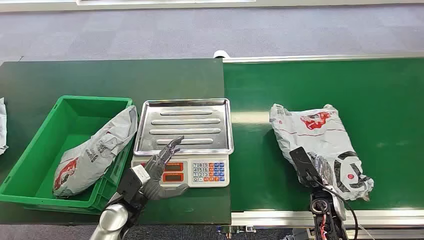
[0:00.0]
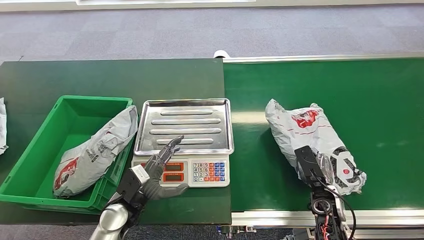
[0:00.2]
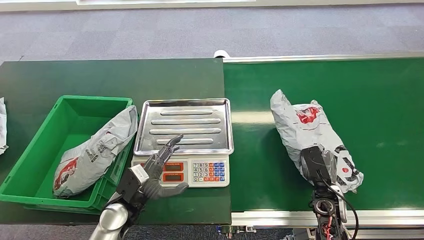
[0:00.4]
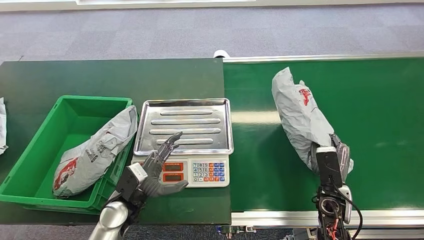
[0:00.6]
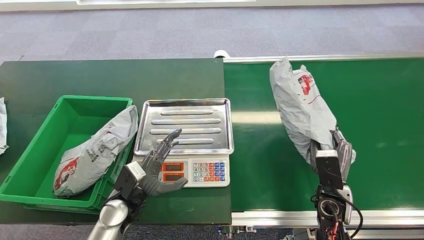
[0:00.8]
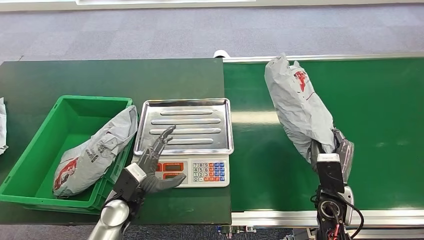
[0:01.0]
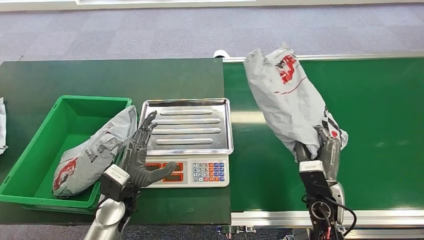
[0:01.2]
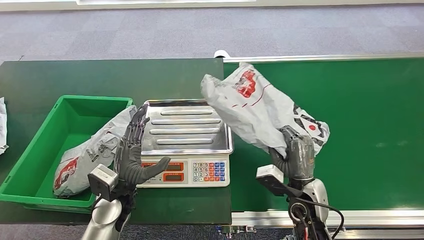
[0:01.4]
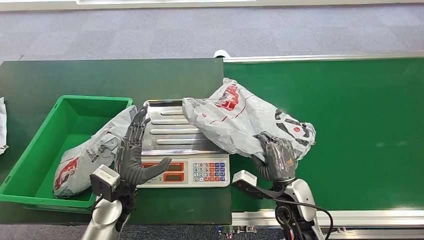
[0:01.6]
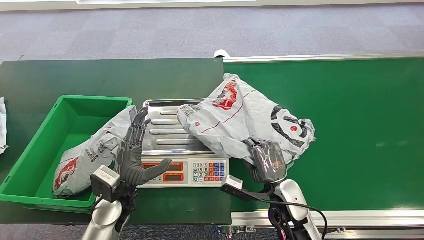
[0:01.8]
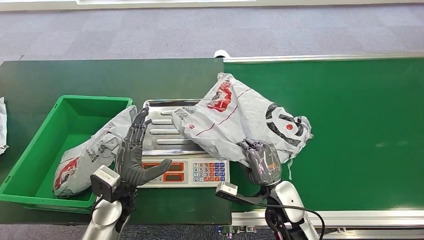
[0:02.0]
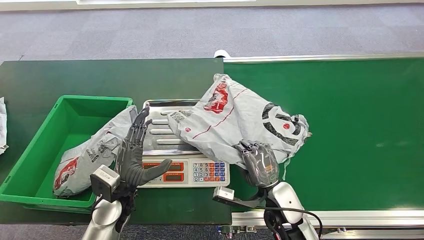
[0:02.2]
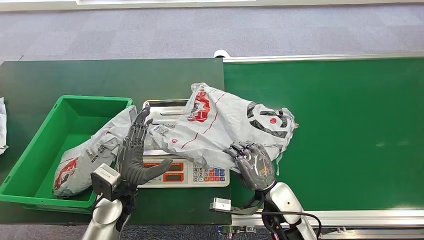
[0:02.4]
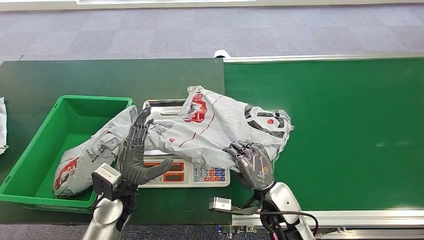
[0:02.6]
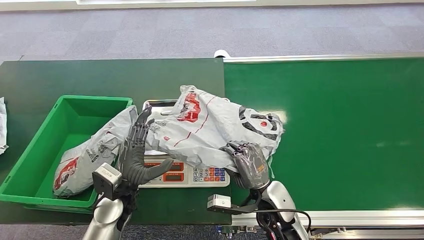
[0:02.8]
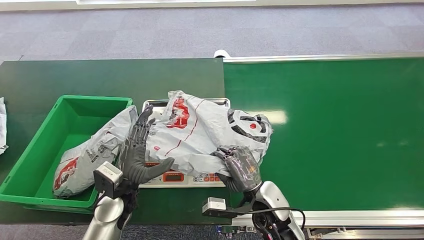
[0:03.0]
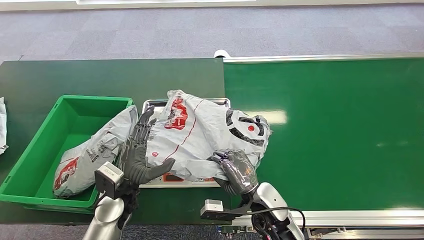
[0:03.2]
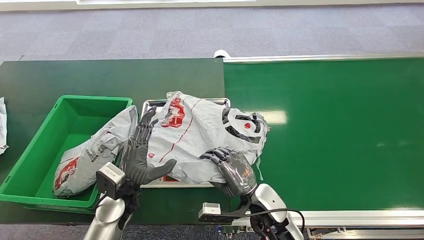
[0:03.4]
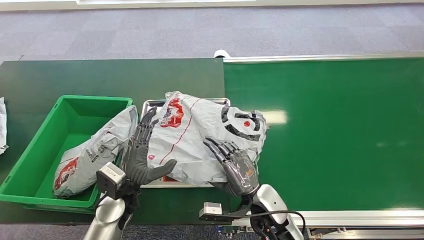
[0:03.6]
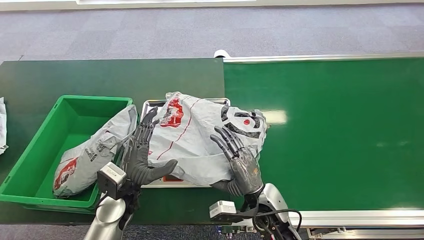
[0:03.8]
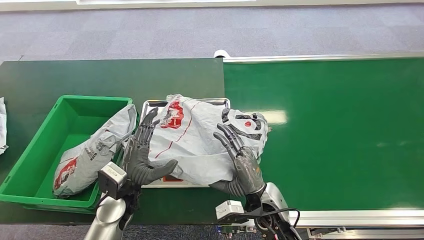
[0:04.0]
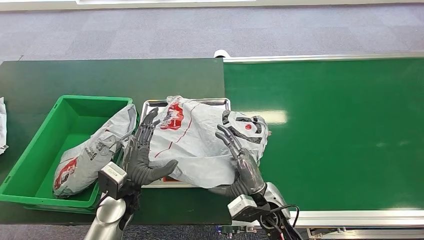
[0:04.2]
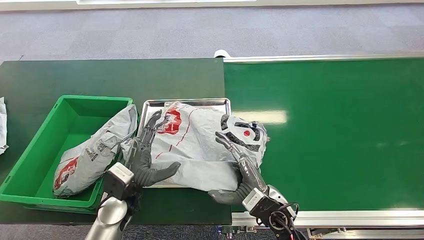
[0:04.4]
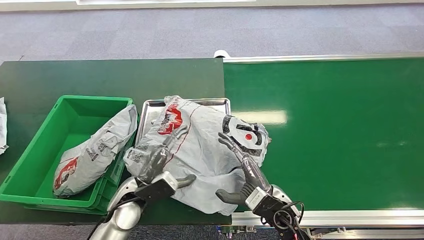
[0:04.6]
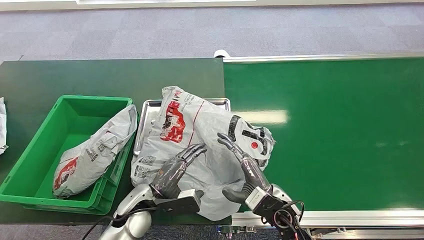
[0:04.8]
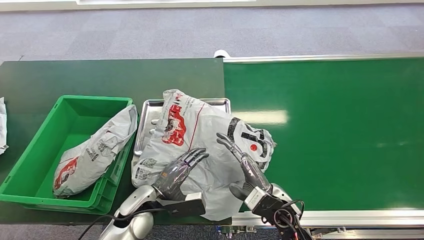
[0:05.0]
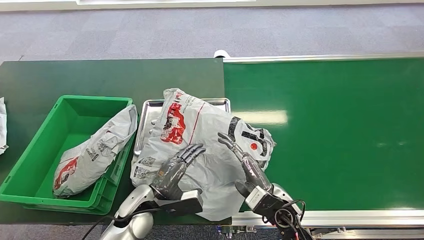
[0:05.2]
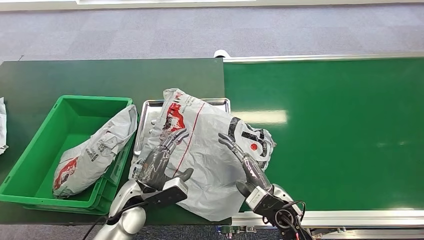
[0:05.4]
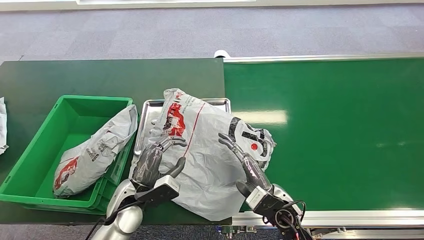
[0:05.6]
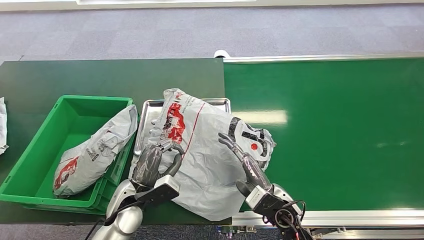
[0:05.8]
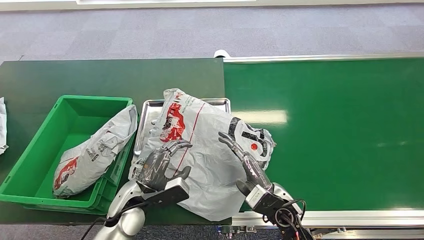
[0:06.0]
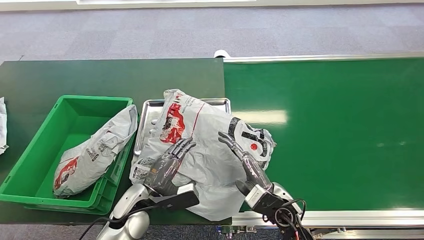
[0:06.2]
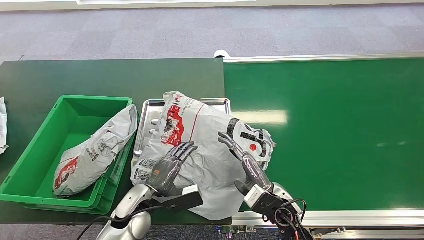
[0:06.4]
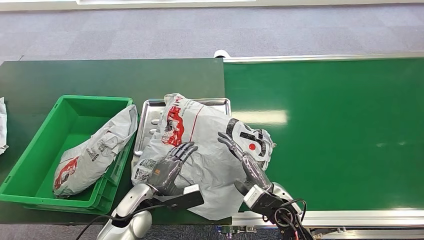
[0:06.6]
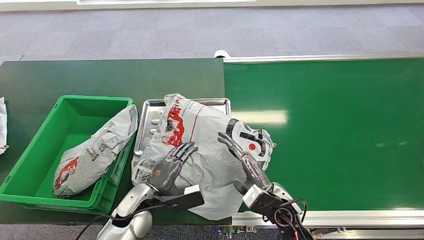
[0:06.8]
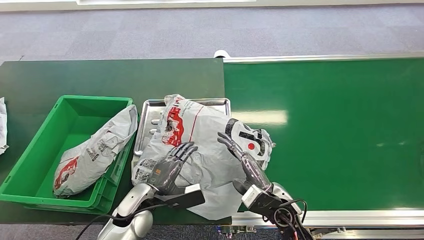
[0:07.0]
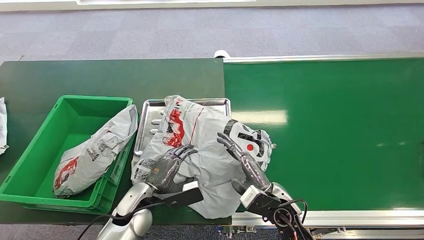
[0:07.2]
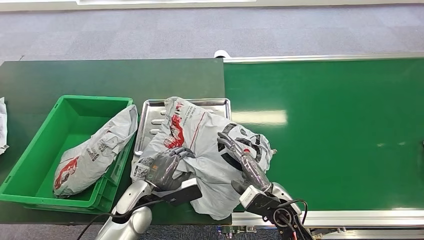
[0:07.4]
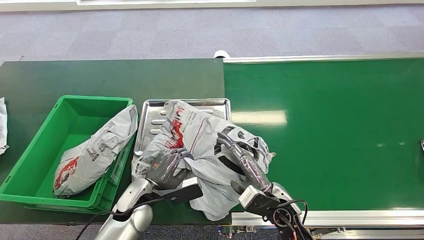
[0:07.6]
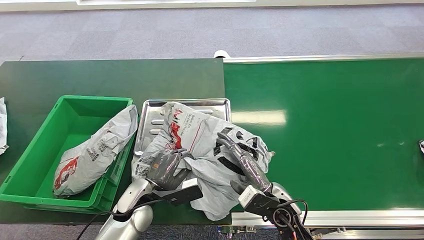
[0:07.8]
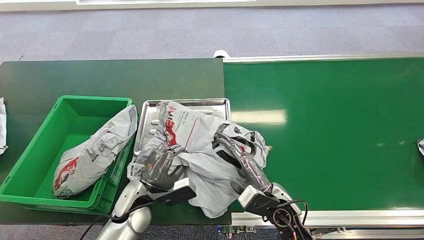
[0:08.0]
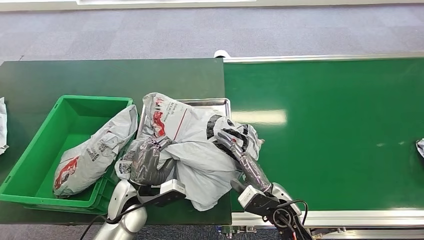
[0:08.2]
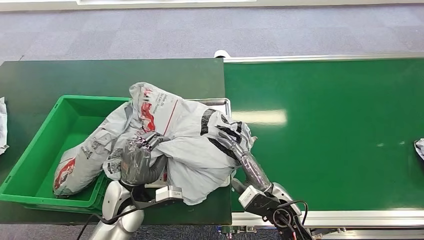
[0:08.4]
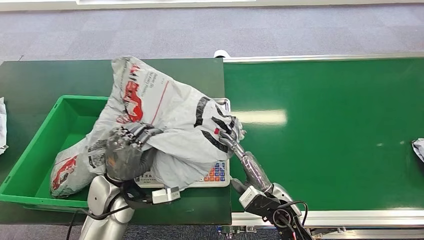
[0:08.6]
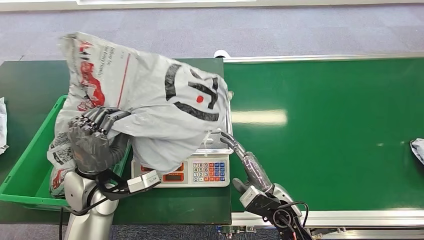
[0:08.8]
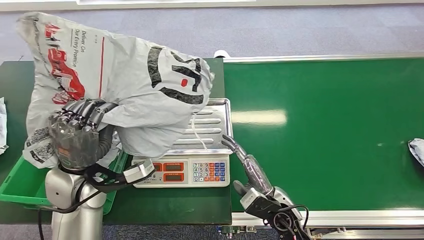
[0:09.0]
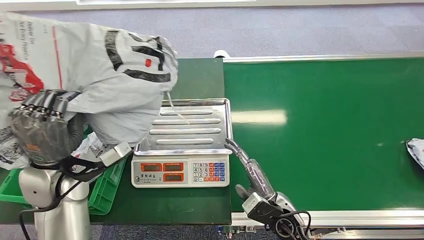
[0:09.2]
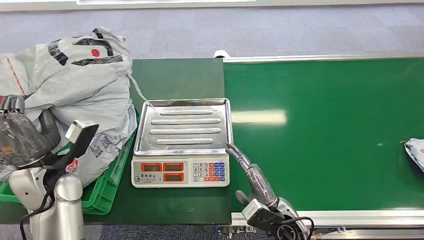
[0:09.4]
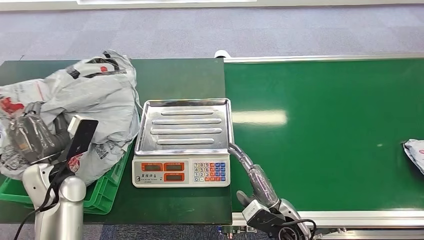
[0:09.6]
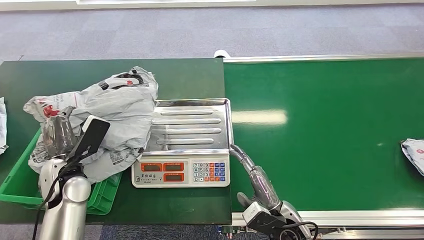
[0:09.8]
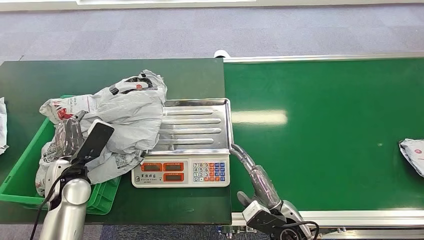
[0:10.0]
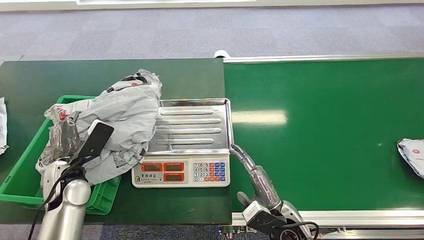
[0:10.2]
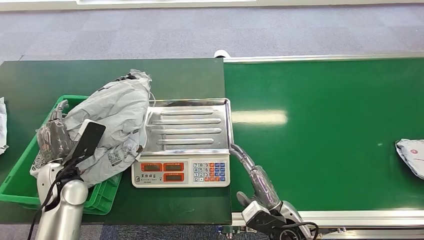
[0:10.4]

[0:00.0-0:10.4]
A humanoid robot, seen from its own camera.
Task of the whole recording: Weigh the package on the weighing device and place it in the left basket.
Step, 0:00.0 to 0:01.0: Pick up the package from the conveyor belt.
Step, 0:01.6 to 0:02.8: Place the package onto the inbound machine.
Step, 0:07.8 to 0:08.6: Pick up the package from the inbound machine.
Step, 0:09.2 to 0:10.4: Place the package into the parcel locker.
0:01.4 to 0:03.0: The right hand shifts approximately 10 cm to the left.
0:06.0 to 0:07.4: The hands move only a little.

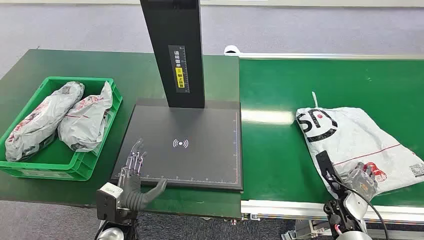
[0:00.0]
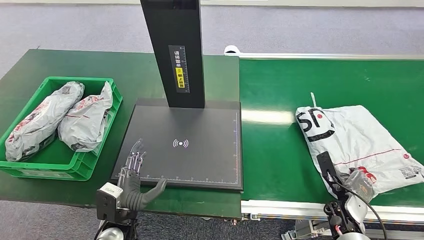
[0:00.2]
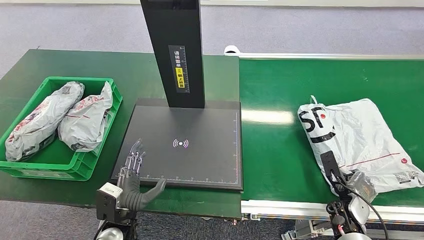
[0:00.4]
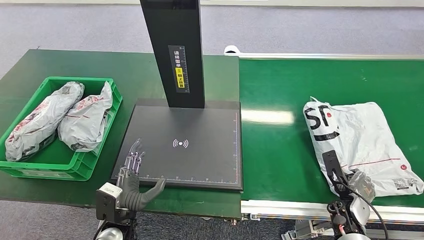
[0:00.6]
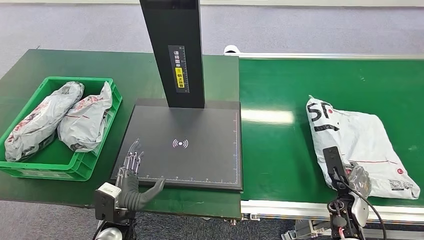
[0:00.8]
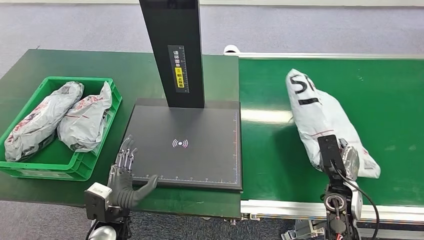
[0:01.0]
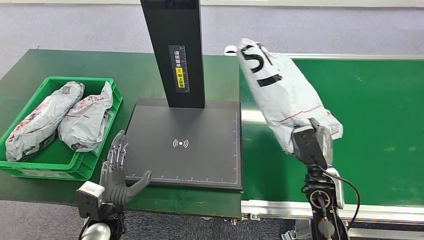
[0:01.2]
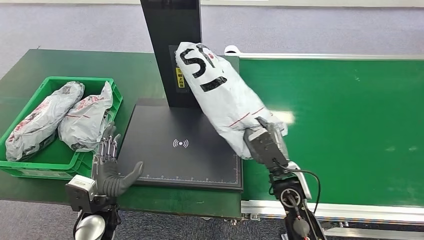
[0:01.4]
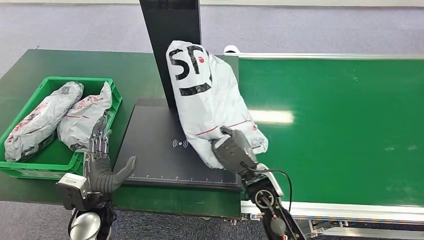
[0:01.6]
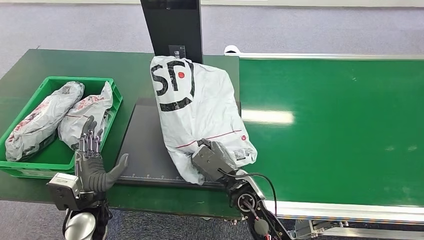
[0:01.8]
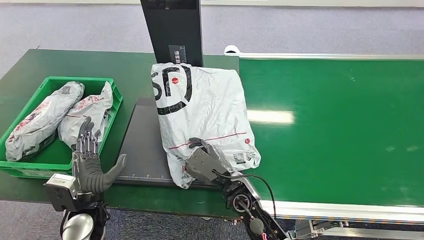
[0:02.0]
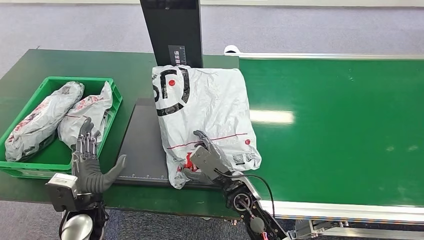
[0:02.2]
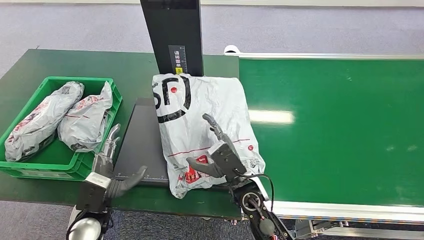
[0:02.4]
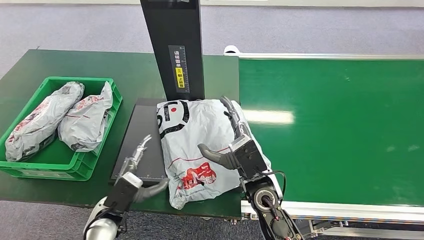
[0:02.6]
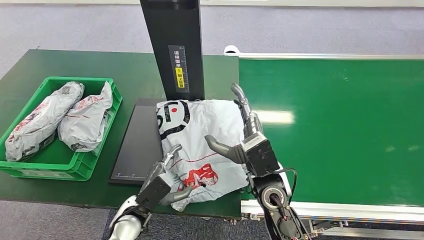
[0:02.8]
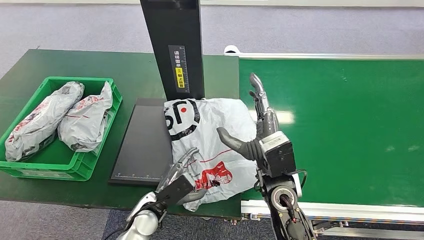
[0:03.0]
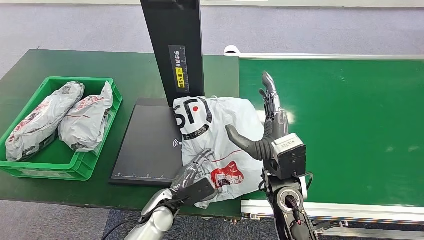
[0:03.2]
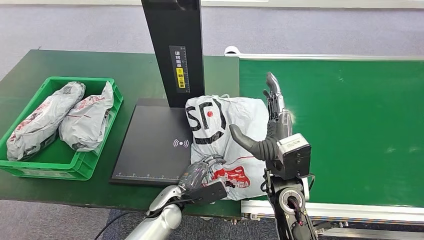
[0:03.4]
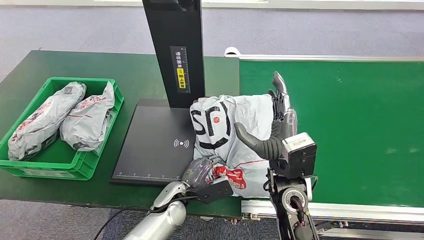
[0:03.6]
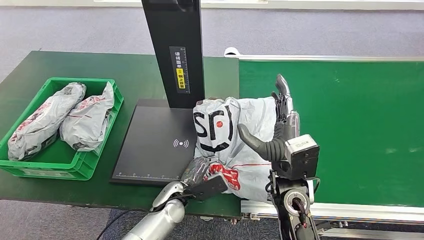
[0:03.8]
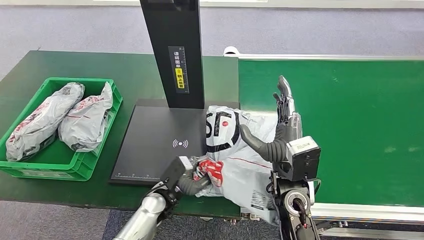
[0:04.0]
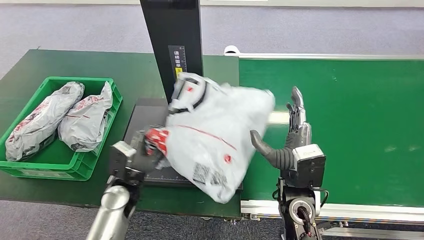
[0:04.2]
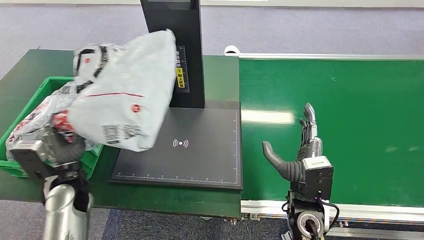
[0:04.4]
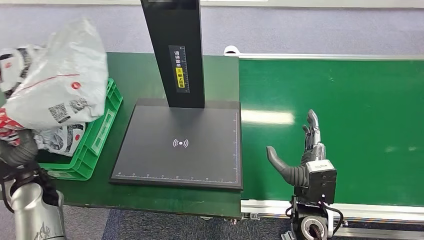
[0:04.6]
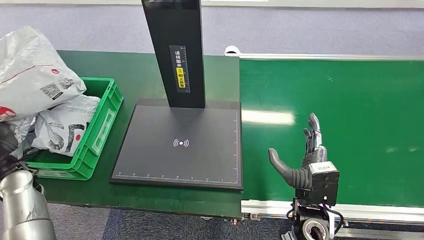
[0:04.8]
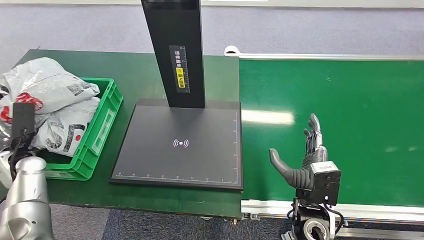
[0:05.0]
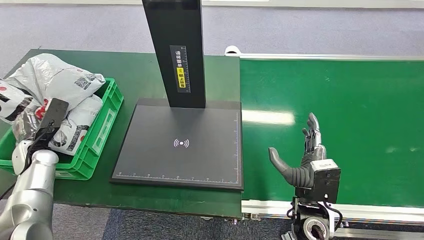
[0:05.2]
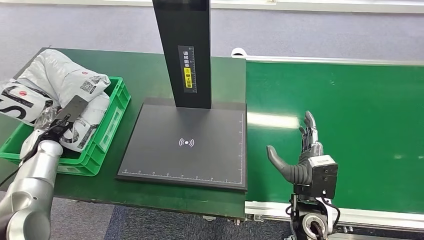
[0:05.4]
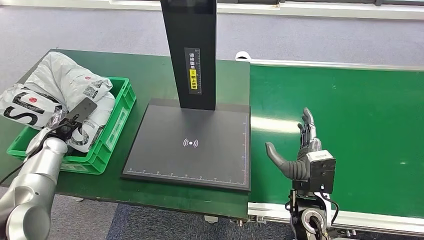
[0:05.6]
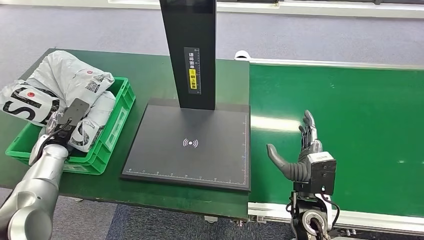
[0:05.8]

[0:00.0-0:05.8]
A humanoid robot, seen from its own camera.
Task of the whole recording: Weigh the package on the weighing device and place it in the left basket.
Step, 0:00.0 to 0:01.8: Pick up the package from the conveyor belt.
Step, 0:02.0 to 0:03.8: Place the package onto the inbound machine.
Step, 0:04.0 to 0:04.6: Pick up the package from the inbound machine.
Step, 0:04.8 to 0:05.8: Place the package into the parcel locker.
